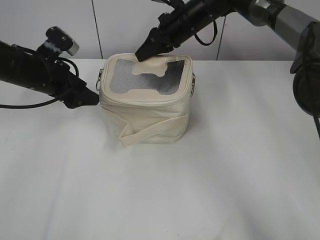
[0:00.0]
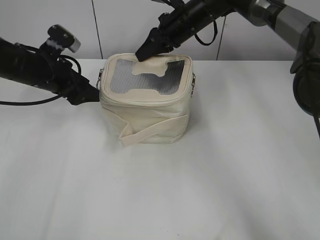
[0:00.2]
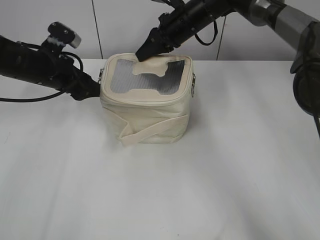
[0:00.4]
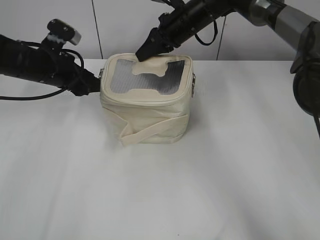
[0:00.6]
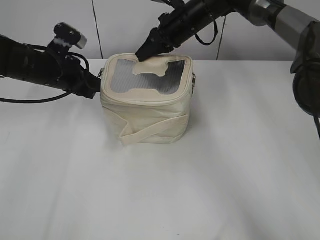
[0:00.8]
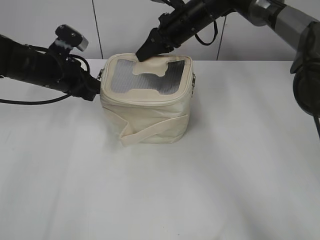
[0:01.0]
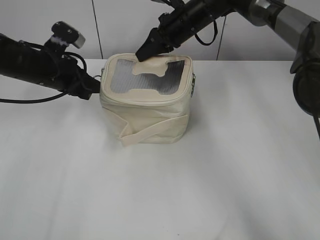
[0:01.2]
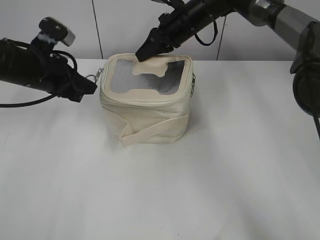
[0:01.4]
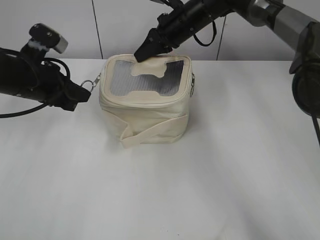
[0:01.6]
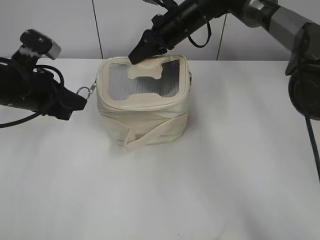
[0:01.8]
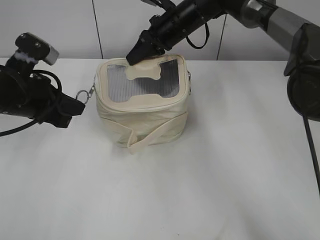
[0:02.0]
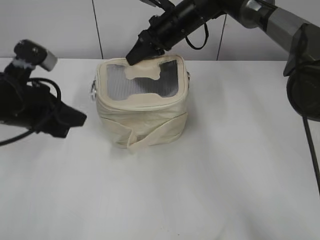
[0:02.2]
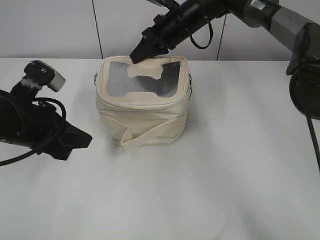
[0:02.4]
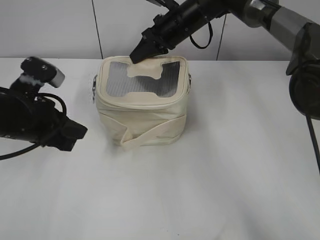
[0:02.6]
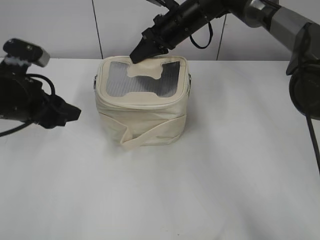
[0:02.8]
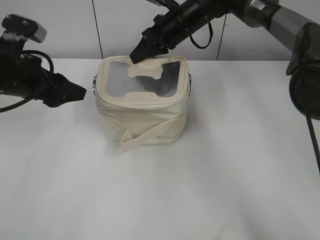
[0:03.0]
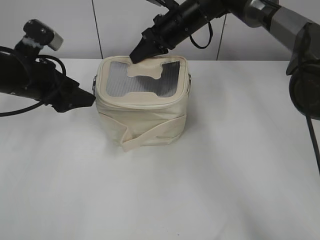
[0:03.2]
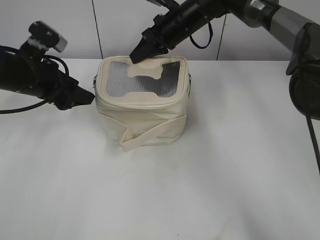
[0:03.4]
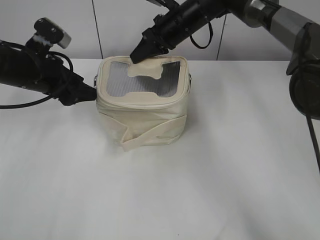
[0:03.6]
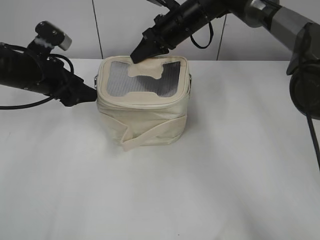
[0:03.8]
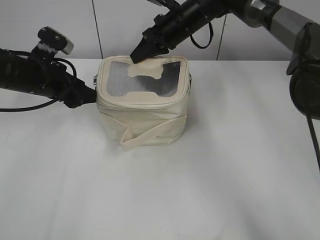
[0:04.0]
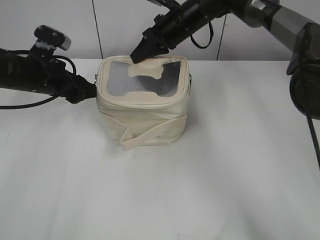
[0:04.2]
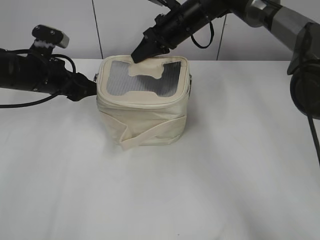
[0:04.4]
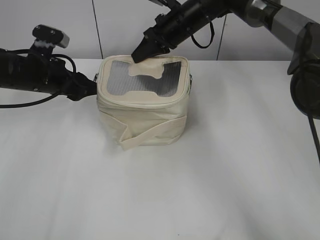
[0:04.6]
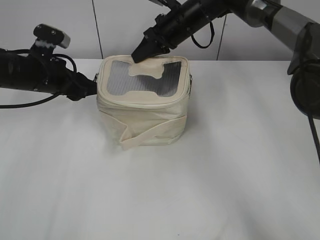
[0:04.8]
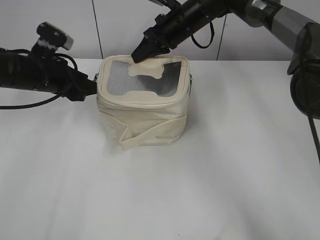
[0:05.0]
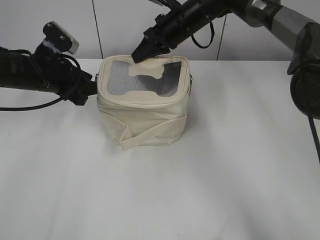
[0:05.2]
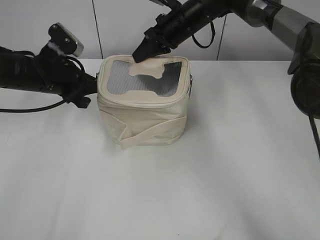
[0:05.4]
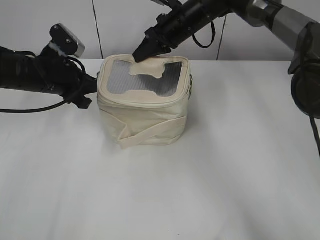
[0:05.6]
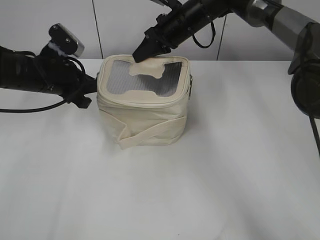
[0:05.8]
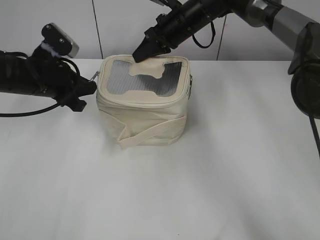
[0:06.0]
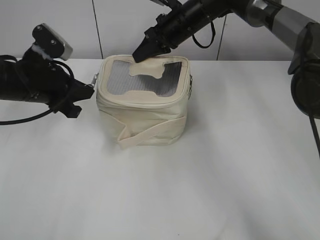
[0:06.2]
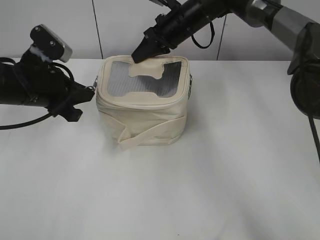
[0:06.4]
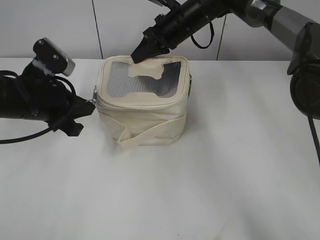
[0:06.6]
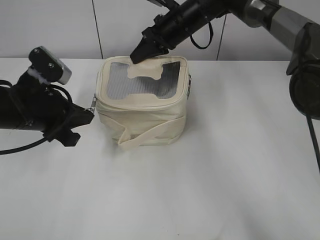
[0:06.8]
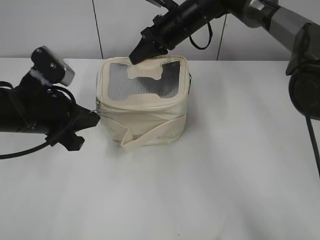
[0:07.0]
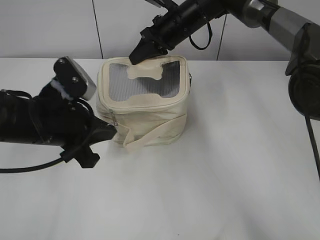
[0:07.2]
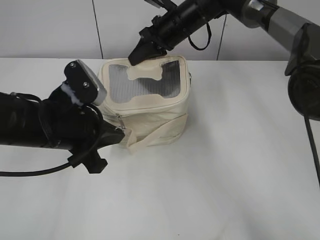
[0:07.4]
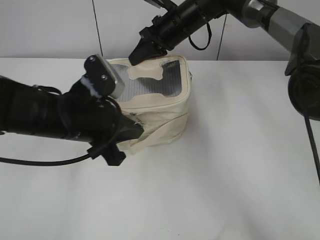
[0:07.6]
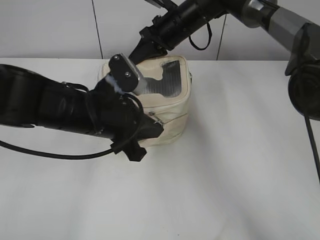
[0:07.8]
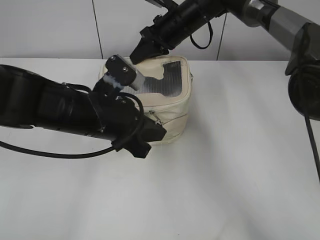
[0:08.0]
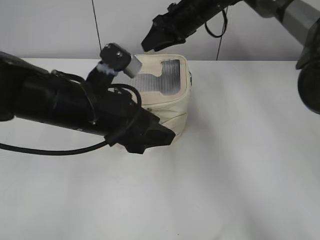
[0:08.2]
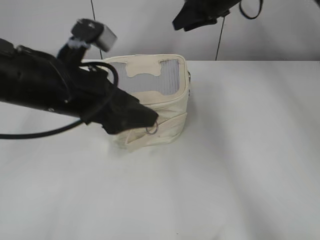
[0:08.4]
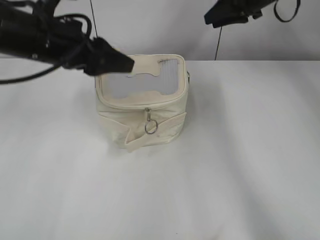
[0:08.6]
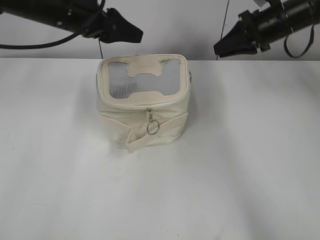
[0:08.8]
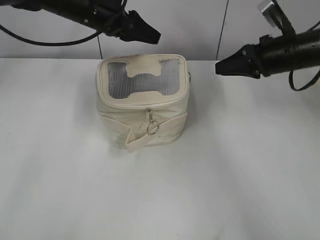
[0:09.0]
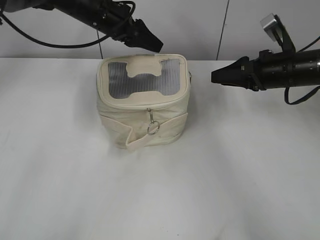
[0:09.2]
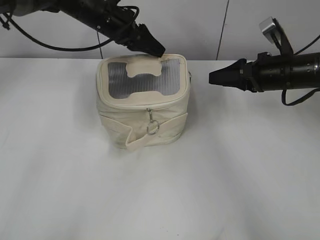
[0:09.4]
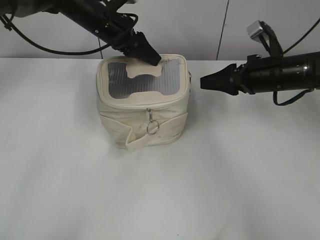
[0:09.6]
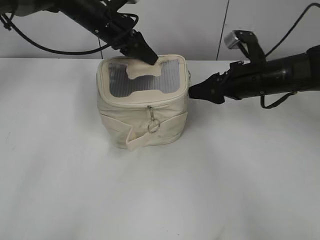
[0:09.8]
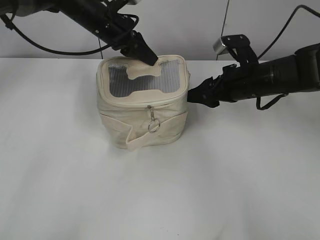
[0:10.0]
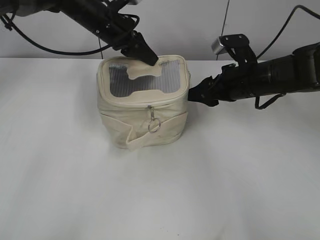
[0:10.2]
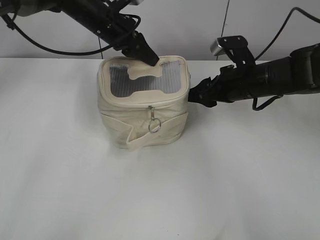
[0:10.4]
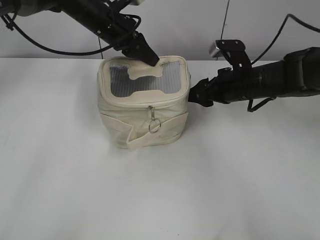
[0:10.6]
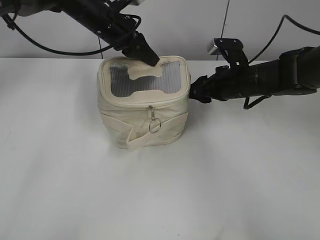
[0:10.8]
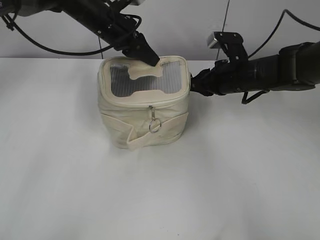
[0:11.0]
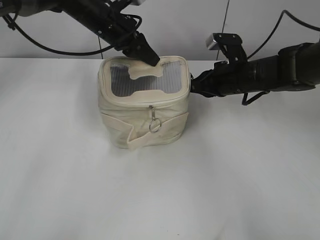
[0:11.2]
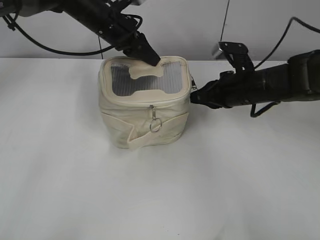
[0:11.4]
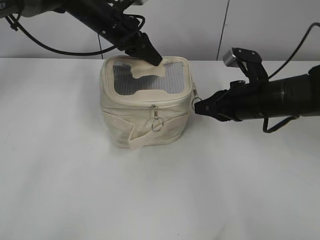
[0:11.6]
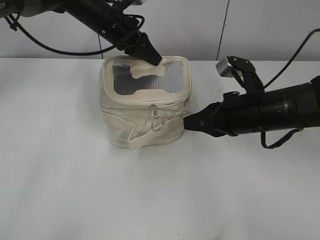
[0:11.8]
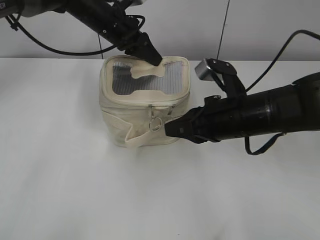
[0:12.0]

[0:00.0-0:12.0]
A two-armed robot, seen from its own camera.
Step, 0:00.0 to 0:08.0: Zip up the bag with your left hand.
0:00.0 to 0:01.6: The left gripper ends up some 5 cm from where it was, and closes its fingers.
0:01.6 to 0:03.0: The left gripper travels backward and back again, approximately 10 cm each way, and opens.
0:03.0 to 0:04.4: The left gripper moves forward, some 5 cm.
0:04.4 to 0:06.0: The left gripper closes.
0:06.0 to 0:07.6: The left gripper is displaced backward and to the right by approximately 15 cm.
0:07.6 to 0:09.0: The left gripper is displaced forward by about 20 cm, and opens; the right gripper goes approximately 20 cm to the right and backward.
0:09.0 to 0:10.4: The right gripper is displaced to the left and downward by approximately 10 cm, and opens. Meanwhile the left gripper moves roughly 5 cm, and closes.
0:10.4 to 0:12.0: The right gripper is displaced backward by approximately 10 cm, and closes up.

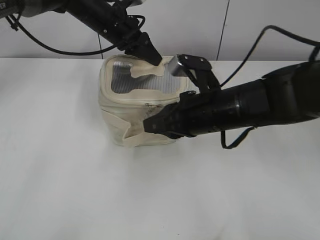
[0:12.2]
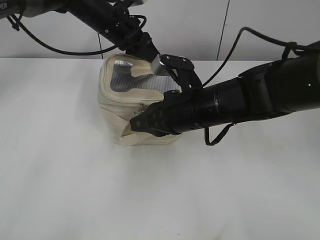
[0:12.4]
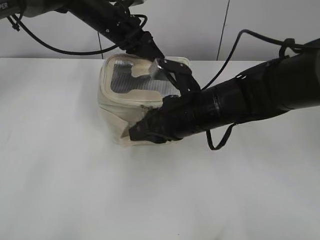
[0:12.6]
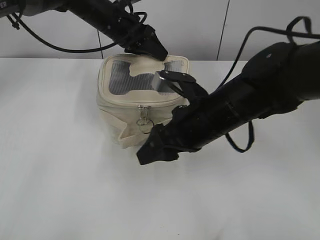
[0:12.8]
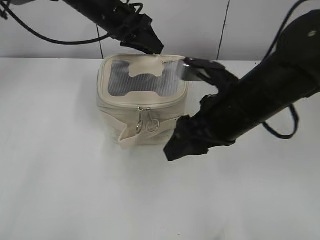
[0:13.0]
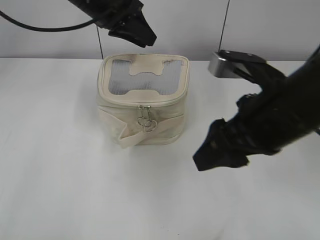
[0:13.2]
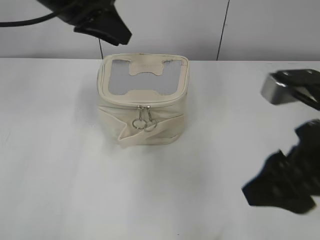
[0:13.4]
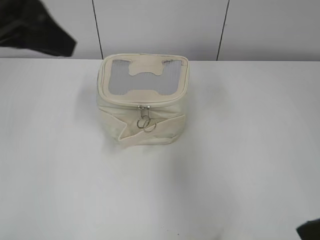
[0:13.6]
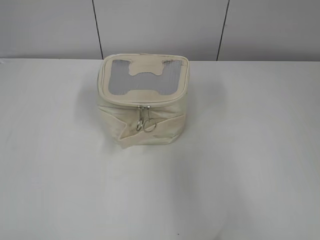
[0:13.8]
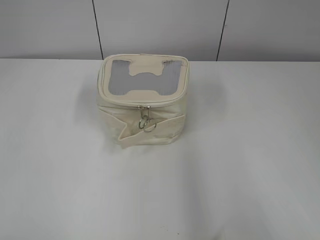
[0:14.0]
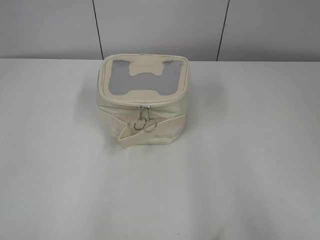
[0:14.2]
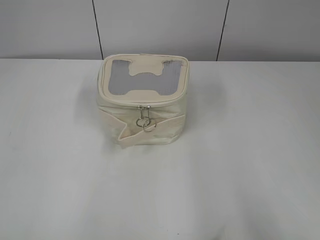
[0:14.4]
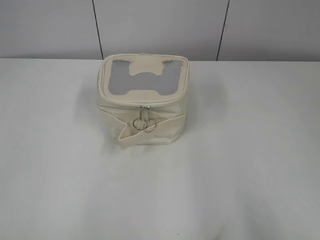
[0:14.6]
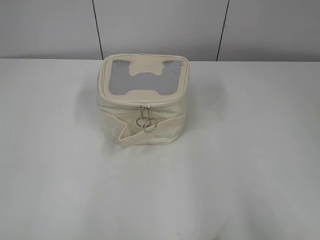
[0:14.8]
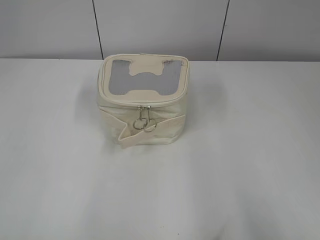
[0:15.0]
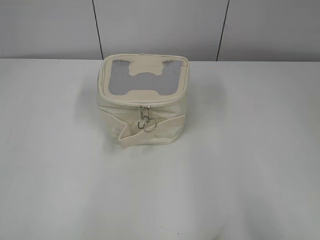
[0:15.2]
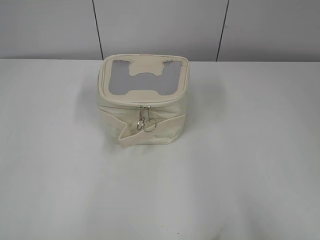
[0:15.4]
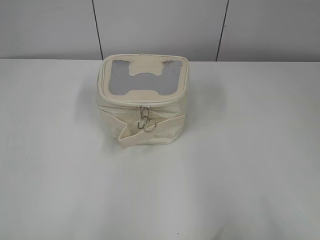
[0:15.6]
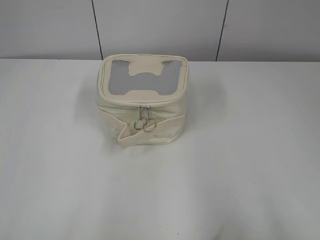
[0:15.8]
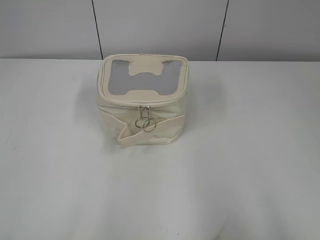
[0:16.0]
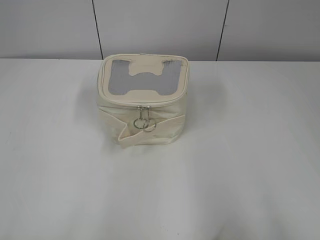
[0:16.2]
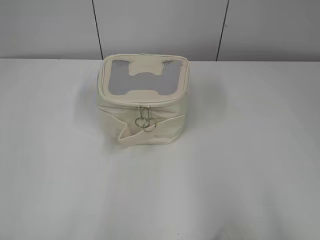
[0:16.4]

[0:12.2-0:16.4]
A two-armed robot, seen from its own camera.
Step, 0:12.8 to 0:13.0: Hold the bag with your left hand.
0:12.2 to 0:13.6: The left gripper moves backward, upward and to the left, roughly 30 cm. The right gripper moves backward, to the right and upward, roughly 20 cm, and opens its fingers.
0:13.6 to 0:15.0: The left gripper moves backward and to the left, some 30 cm, and opens up, while the right gripper heads backward and to the right, covering about 15 cm.
